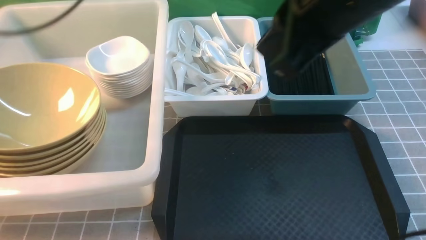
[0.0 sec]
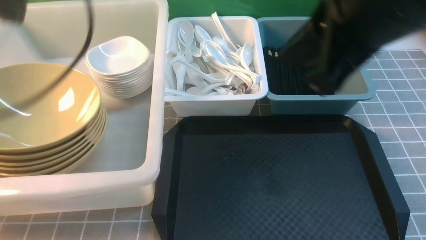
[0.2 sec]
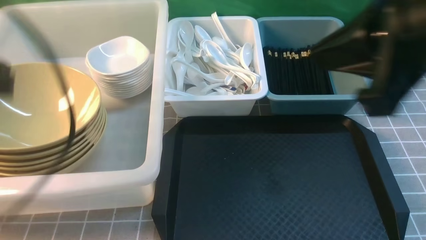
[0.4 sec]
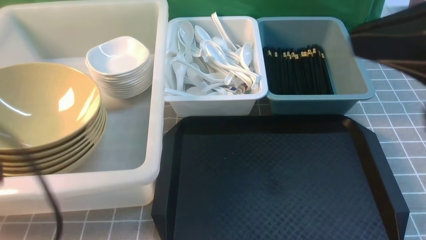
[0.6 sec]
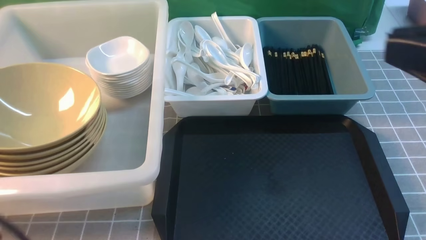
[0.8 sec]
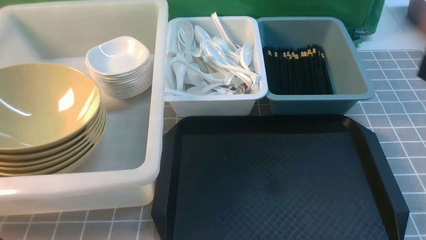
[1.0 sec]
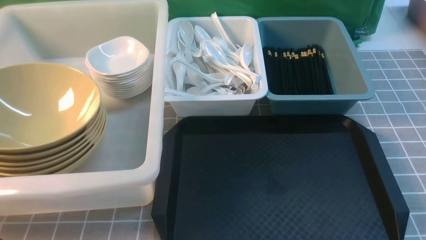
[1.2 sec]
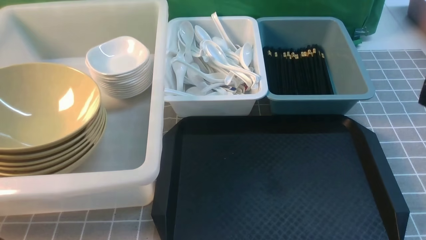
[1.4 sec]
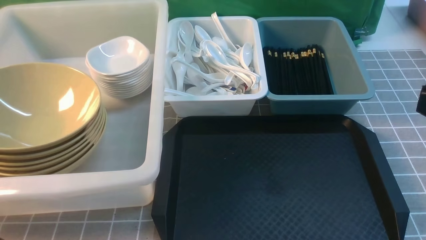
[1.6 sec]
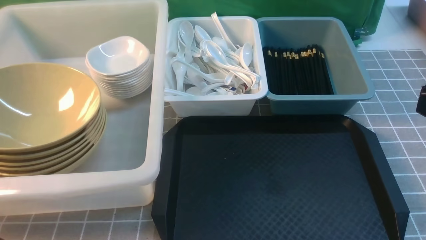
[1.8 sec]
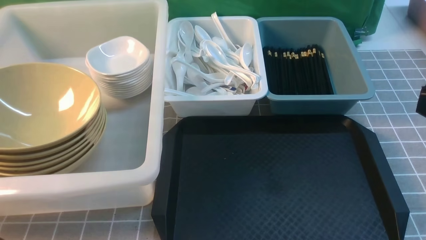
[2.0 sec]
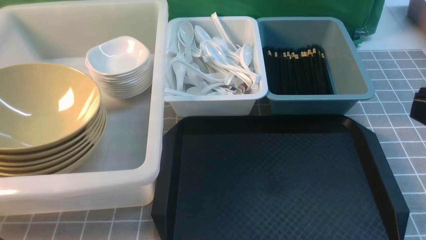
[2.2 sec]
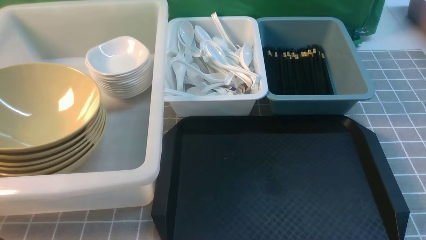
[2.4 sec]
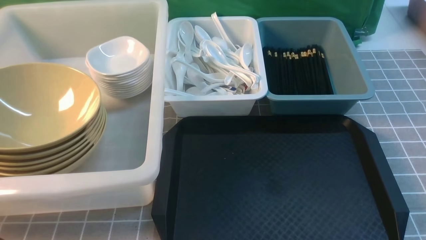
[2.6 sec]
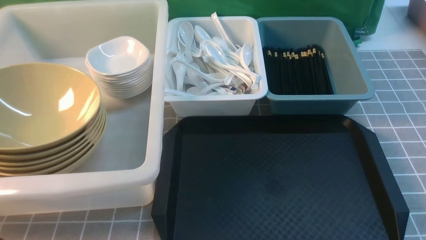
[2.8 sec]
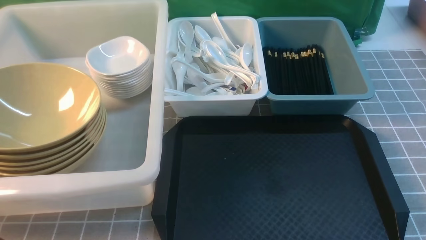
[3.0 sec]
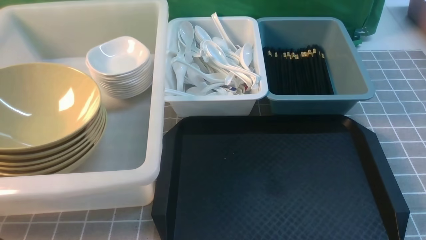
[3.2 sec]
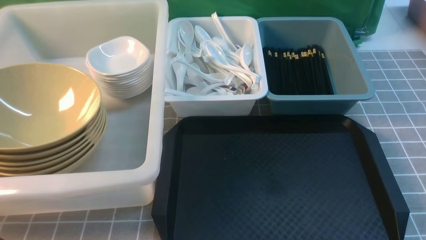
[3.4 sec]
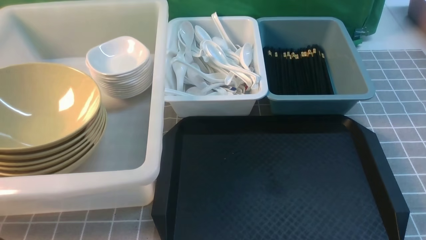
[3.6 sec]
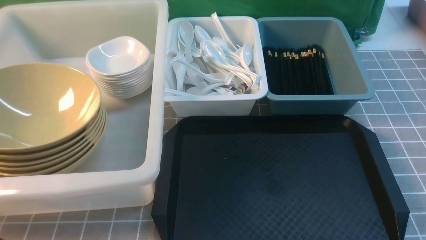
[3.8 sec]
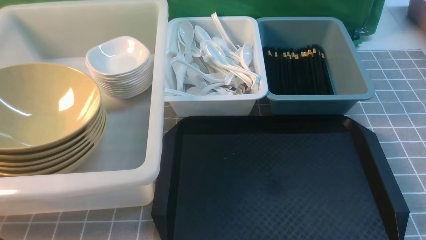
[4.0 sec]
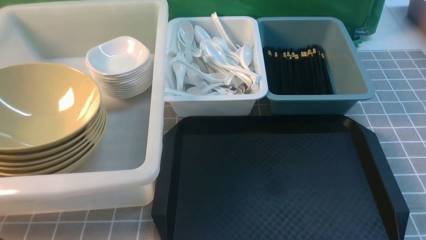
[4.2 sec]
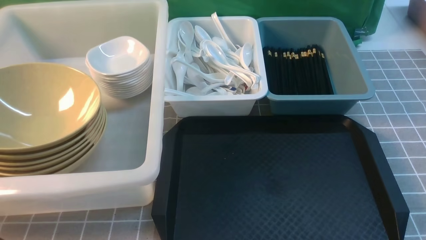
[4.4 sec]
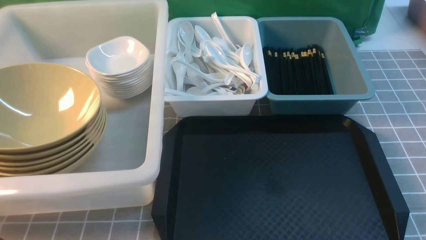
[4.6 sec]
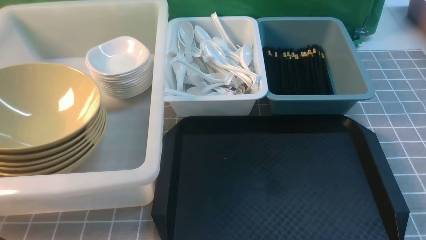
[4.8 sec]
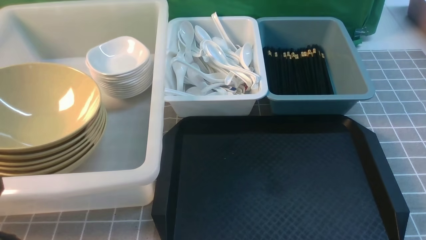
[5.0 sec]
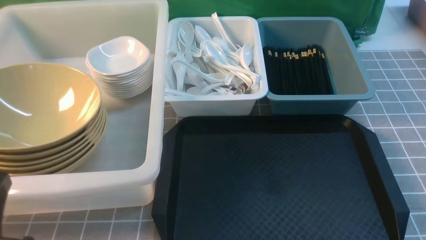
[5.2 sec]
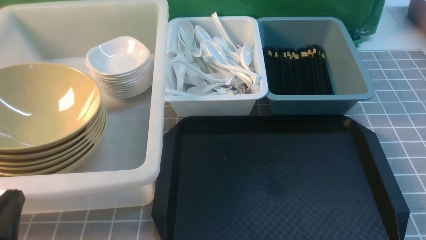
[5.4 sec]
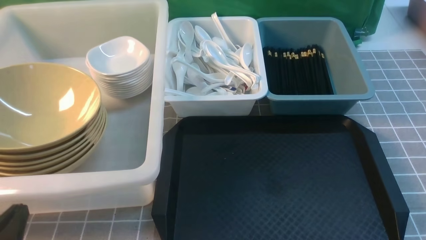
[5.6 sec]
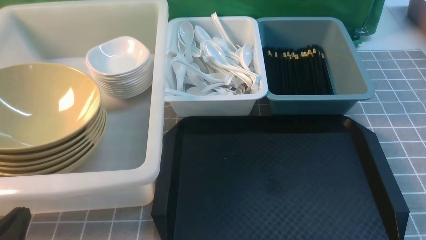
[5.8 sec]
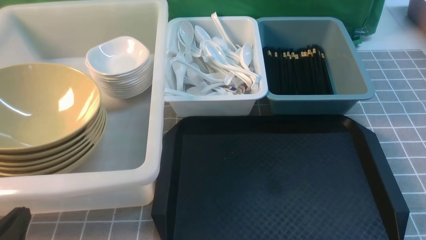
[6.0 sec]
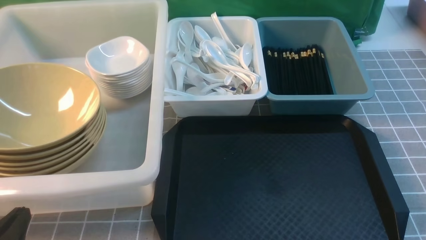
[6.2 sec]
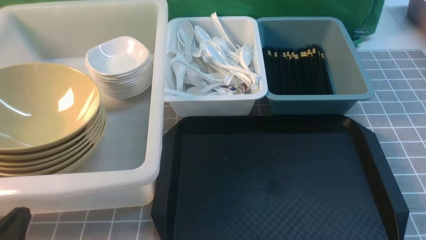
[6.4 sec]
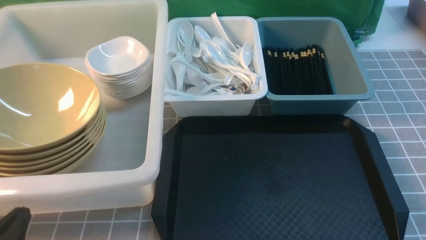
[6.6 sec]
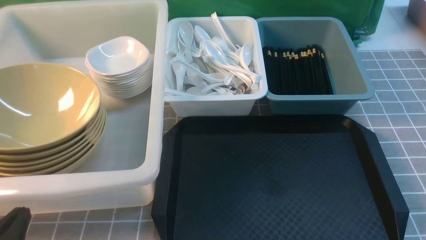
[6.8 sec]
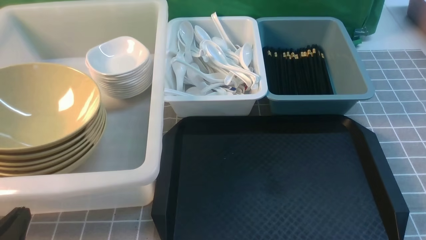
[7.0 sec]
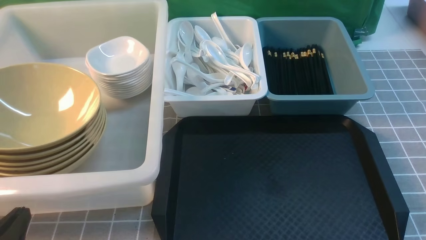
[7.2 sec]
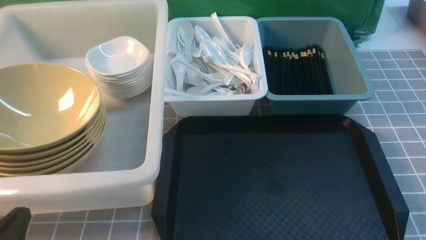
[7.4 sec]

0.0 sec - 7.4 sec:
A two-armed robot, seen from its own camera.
Task of the whole recording: on grey table put chopsticks spoon bowls plates into blue grey white boxes.
0.0 sec - 1.4 sec: The left gripper goes approximately 35 cm backward and downward, and closes up. The right gripper travels backward and to the right by roughly 20 cm.
4.4 sec - 6.0 sec: The left gripper heads downward, covering approximately 15 cm.
6.0 sec - 7.4 sec: The two grippers keep their place.
